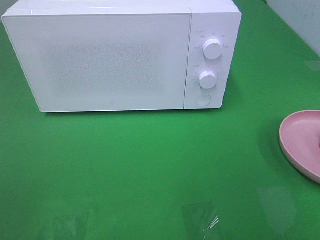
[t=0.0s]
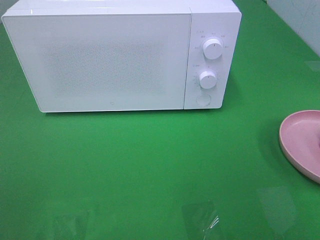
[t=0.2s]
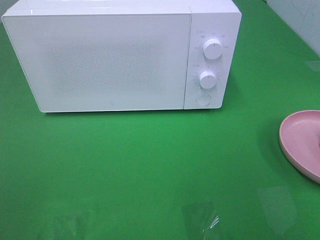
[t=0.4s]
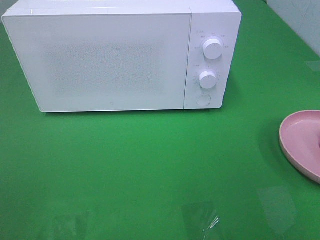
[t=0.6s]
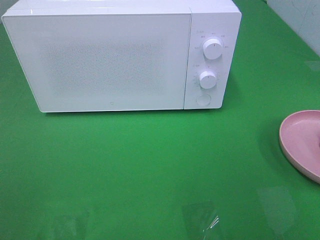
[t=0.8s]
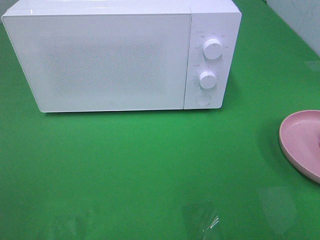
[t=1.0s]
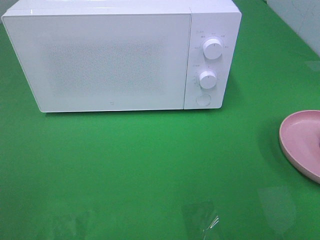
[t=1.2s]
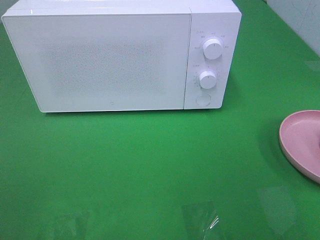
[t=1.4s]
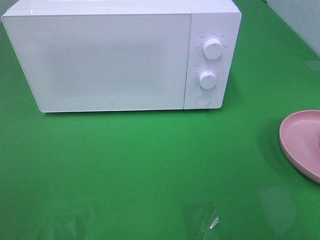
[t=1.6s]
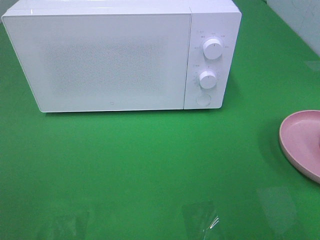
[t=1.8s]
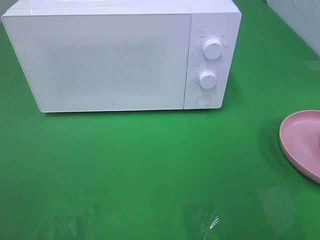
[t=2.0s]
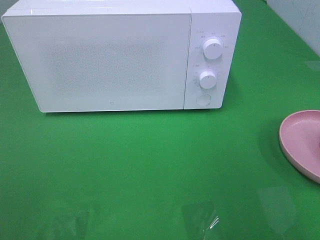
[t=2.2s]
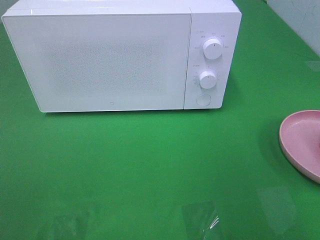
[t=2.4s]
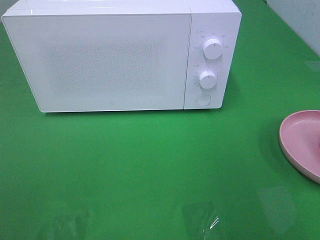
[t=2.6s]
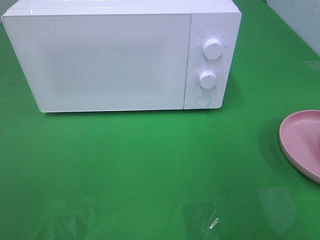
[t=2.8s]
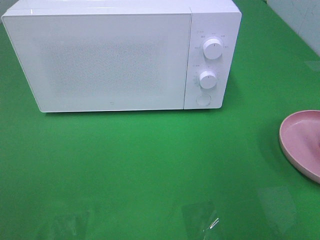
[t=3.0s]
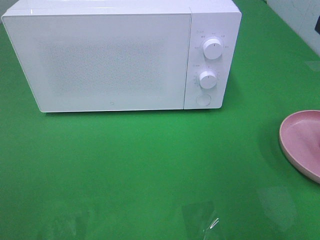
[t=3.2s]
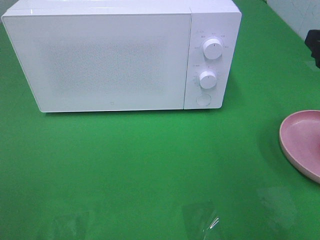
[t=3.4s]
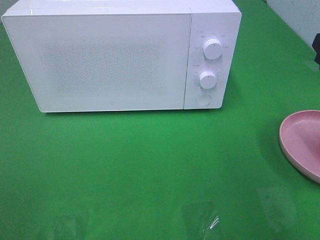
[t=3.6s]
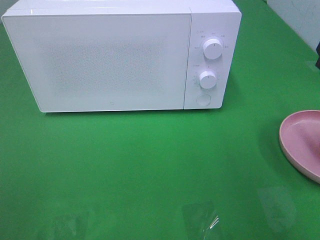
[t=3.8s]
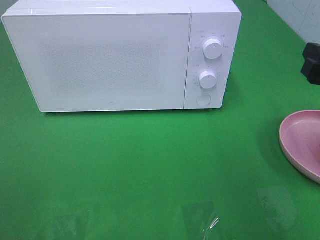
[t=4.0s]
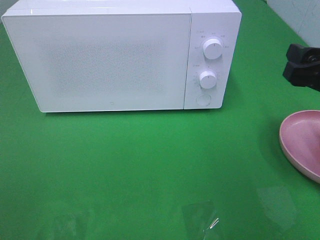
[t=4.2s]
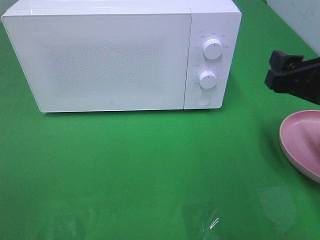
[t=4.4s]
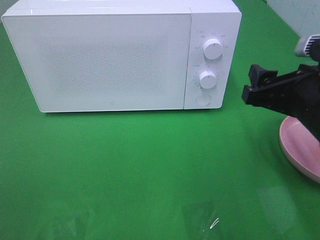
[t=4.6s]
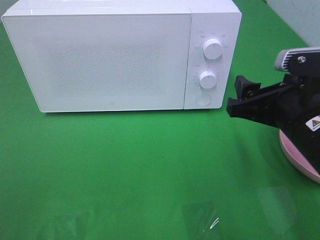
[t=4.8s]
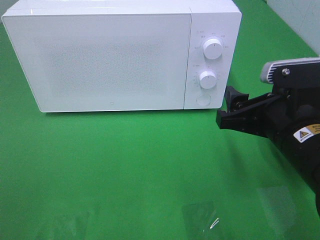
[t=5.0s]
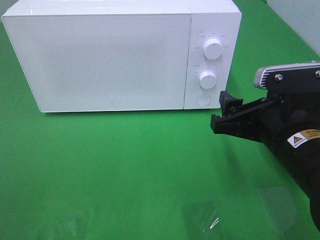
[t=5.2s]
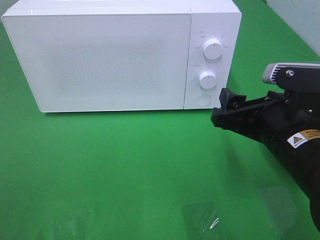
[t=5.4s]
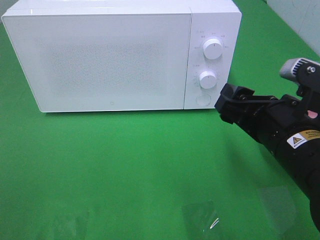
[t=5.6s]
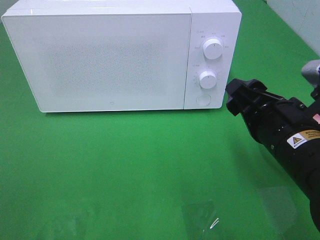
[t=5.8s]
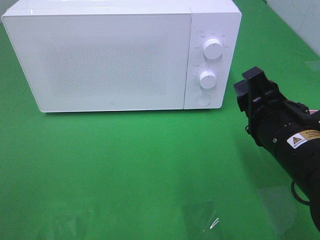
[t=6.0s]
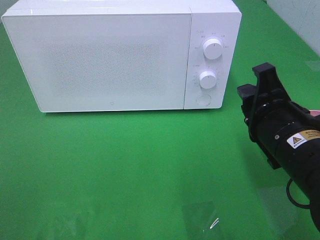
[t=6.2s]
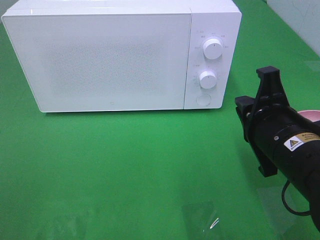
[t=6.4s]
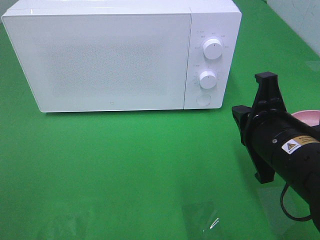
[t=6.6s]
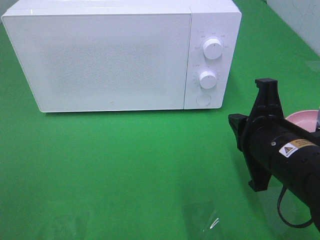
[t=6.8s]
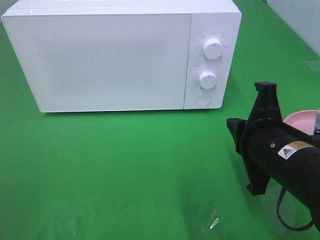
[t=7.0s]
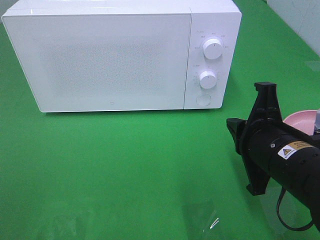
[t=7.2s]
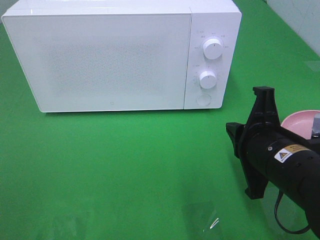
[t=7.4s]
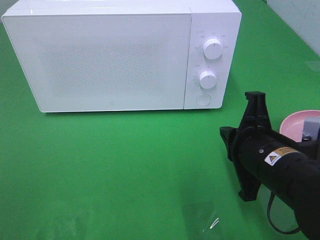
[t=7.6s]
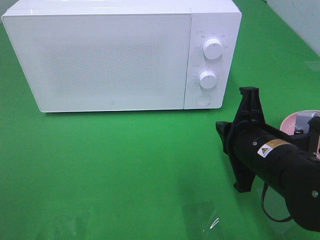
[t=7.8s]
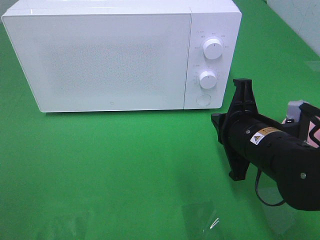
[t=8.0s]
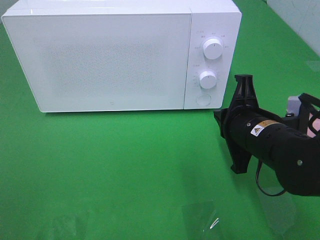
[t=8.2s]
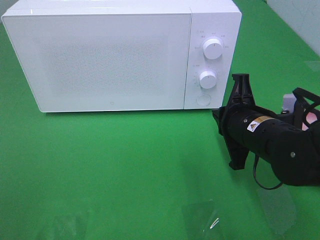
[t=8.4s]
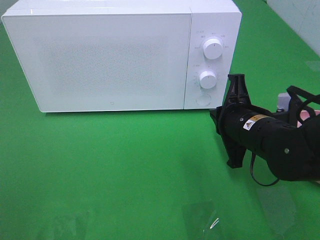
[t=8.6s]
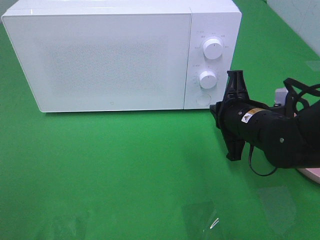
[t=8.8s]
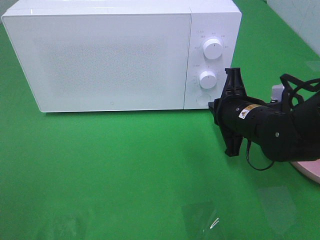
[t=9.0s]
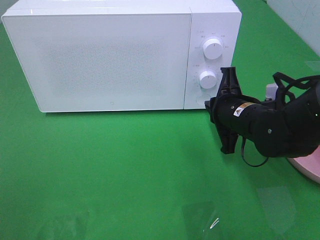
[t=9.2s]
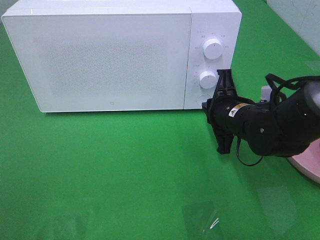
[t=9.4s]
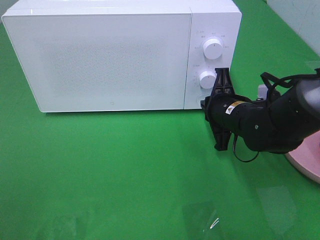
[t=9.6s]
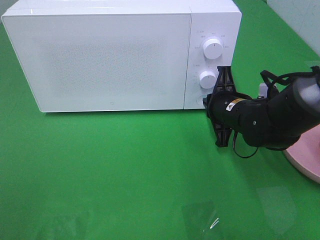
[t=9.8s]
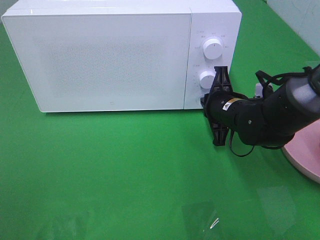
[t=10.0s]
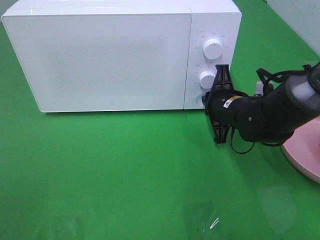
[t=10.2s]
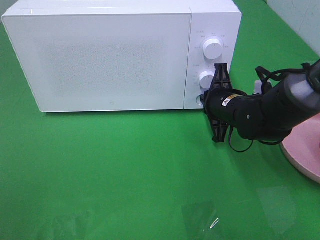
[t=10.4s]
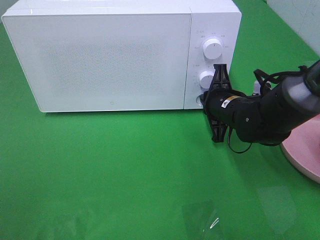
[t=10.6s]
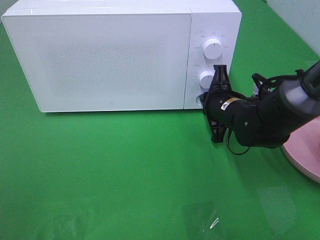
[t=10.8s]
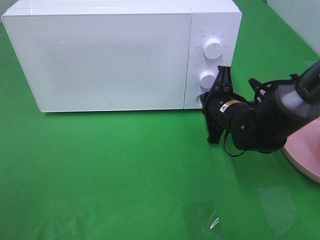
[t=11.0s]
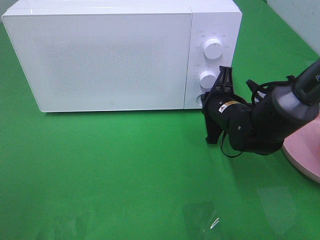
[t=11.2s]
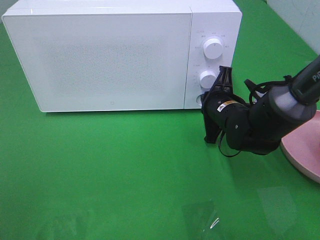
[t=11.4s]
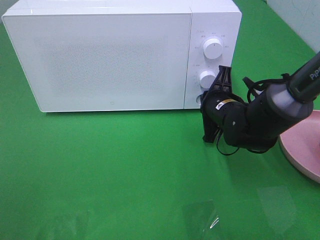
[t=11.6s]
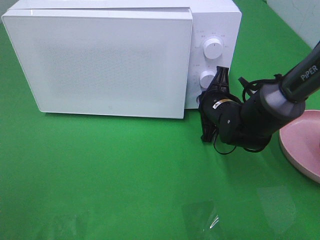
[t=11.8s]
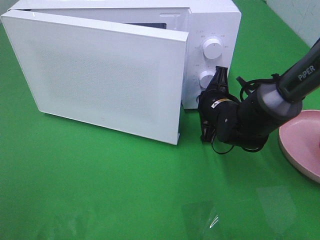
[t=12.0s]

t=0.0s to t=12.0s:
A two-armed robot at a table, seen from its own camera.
Task of the whole recording: Heat the burger.
t=3.0s to t=4.4s: The right gripper heads downward and to the left, covering approximately 10 cm.
t=4.4s to t=6.0s: The right gripper is displaced to the left by about 5 cm.
t=6.0s to t=7.6s: The right gripper closes.
t=7.6s to t=9.0s: The right gripper is displaced forward by about 10 cm.
t=9.0s to t=10.4s: The right gripper is displaced forward by roughly 5 cm.
t=10.4s to t=12.0s: There are only small adjustments of the grippers.

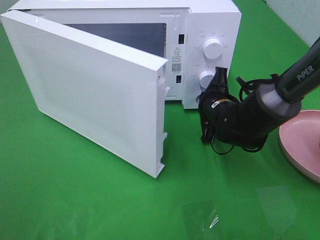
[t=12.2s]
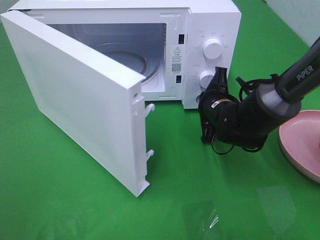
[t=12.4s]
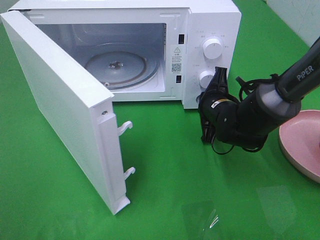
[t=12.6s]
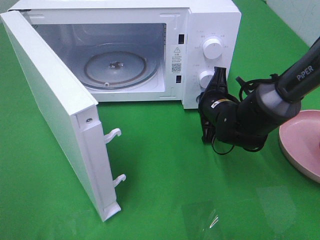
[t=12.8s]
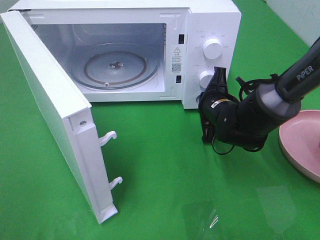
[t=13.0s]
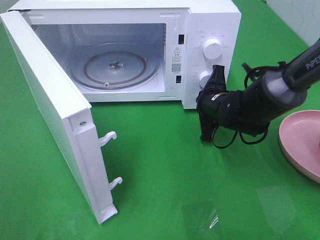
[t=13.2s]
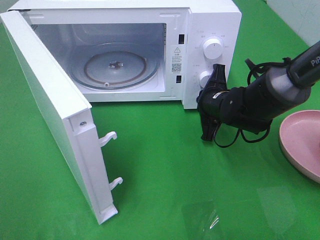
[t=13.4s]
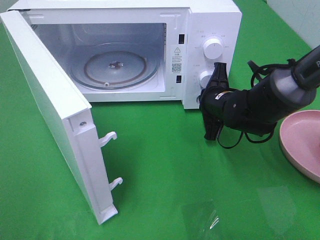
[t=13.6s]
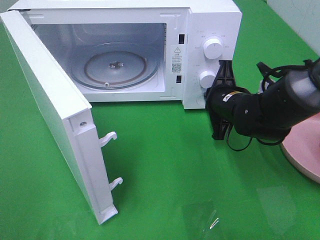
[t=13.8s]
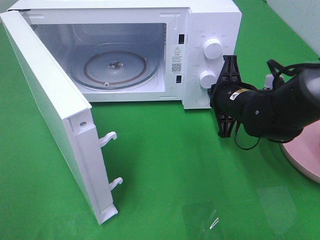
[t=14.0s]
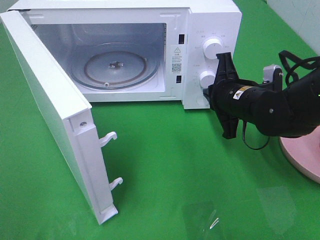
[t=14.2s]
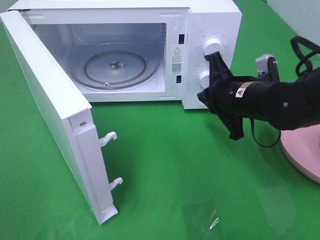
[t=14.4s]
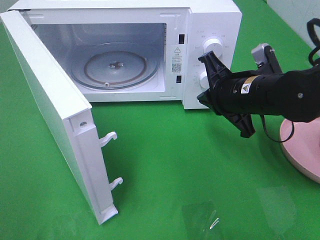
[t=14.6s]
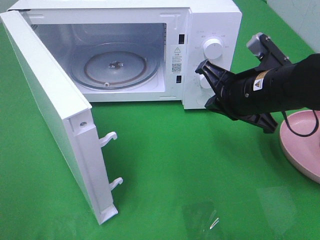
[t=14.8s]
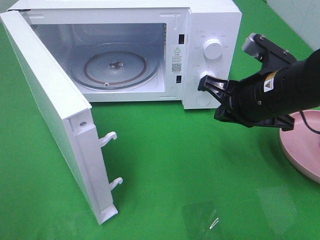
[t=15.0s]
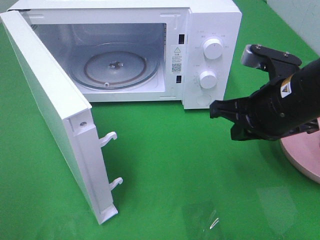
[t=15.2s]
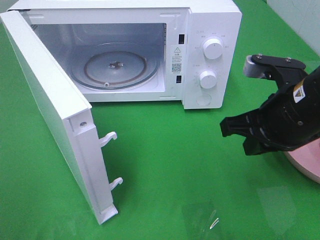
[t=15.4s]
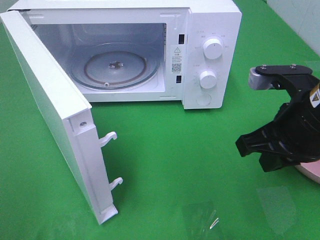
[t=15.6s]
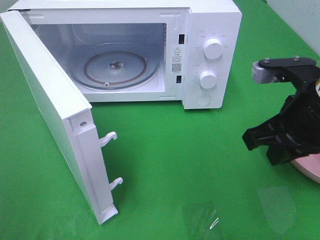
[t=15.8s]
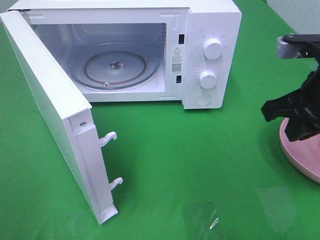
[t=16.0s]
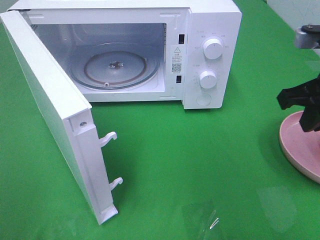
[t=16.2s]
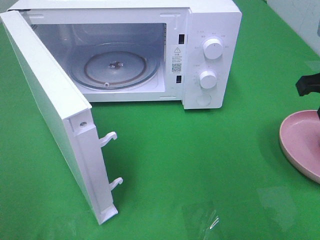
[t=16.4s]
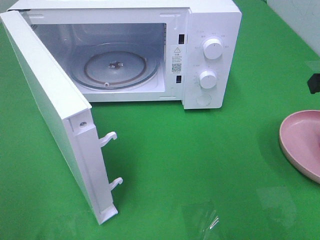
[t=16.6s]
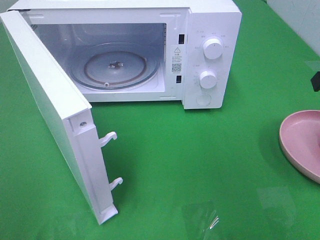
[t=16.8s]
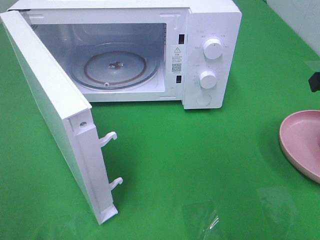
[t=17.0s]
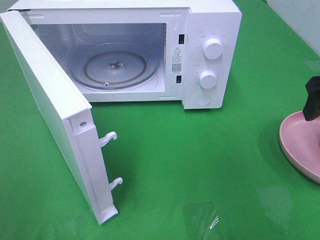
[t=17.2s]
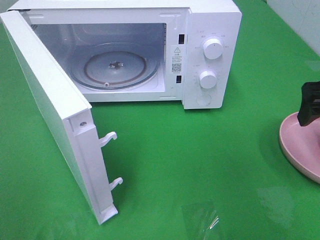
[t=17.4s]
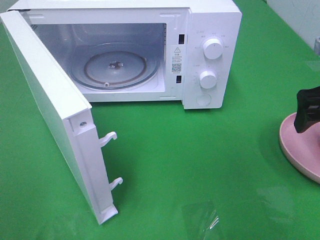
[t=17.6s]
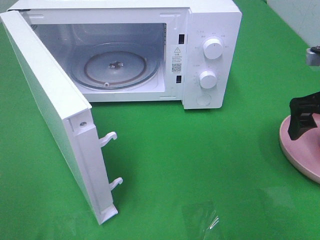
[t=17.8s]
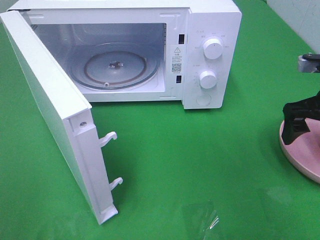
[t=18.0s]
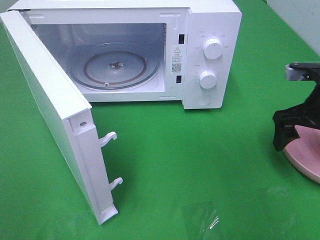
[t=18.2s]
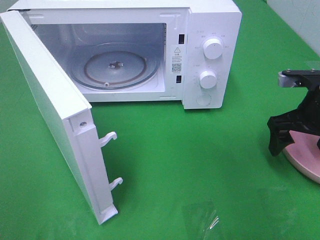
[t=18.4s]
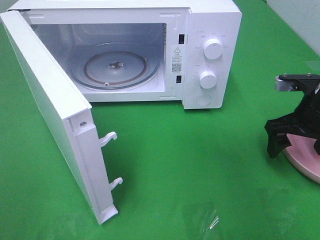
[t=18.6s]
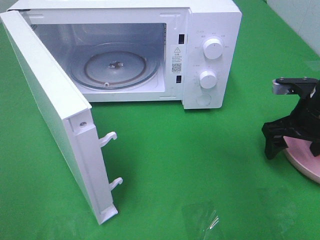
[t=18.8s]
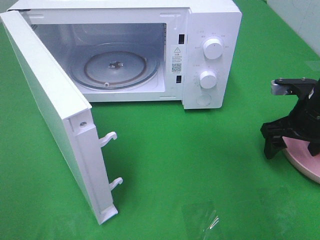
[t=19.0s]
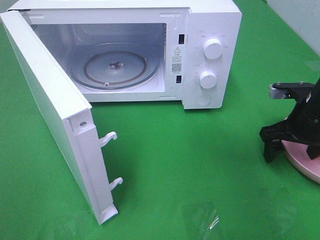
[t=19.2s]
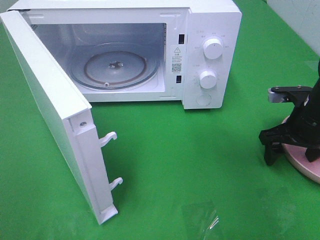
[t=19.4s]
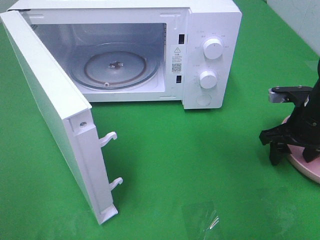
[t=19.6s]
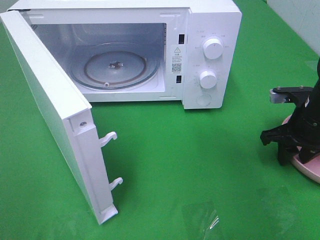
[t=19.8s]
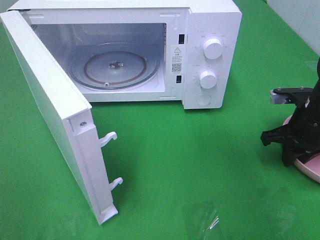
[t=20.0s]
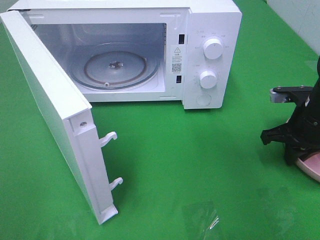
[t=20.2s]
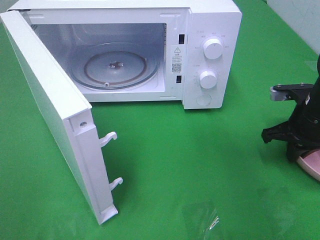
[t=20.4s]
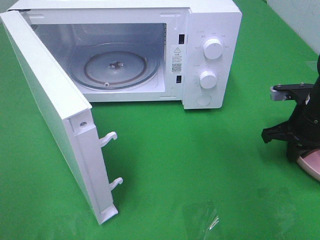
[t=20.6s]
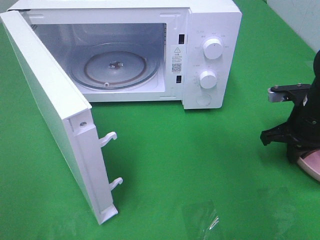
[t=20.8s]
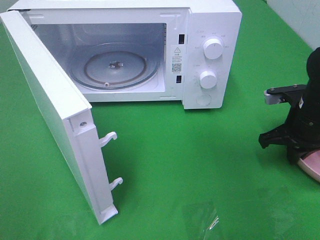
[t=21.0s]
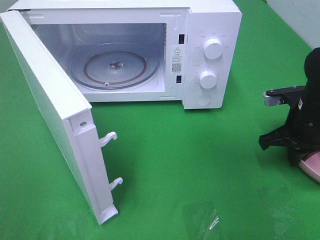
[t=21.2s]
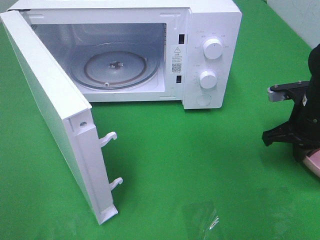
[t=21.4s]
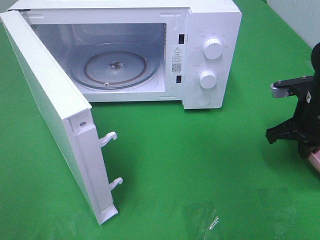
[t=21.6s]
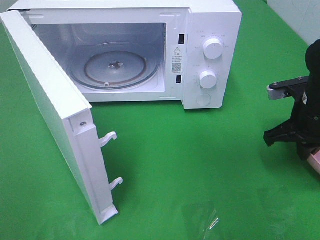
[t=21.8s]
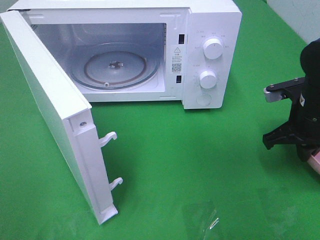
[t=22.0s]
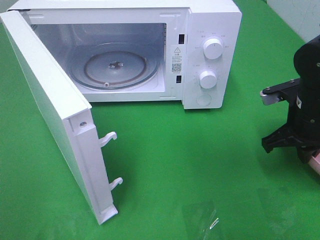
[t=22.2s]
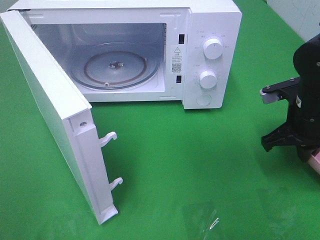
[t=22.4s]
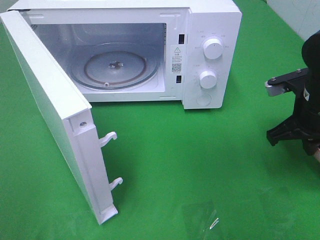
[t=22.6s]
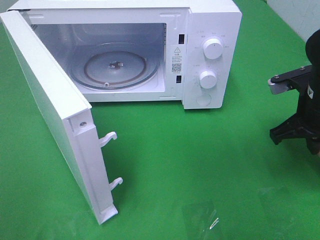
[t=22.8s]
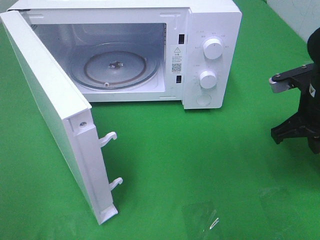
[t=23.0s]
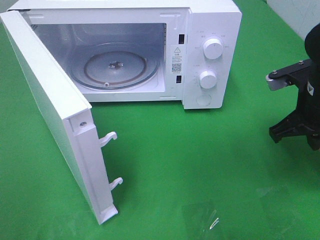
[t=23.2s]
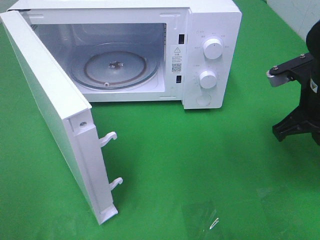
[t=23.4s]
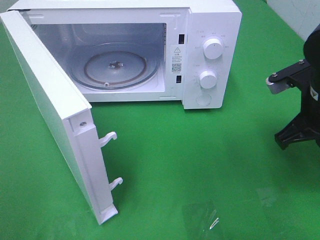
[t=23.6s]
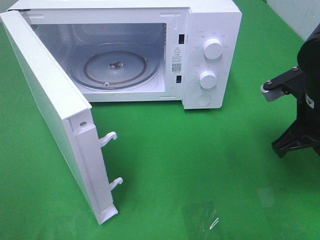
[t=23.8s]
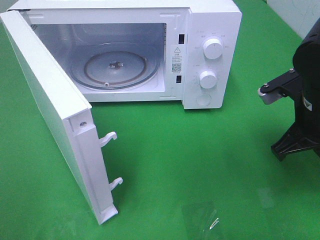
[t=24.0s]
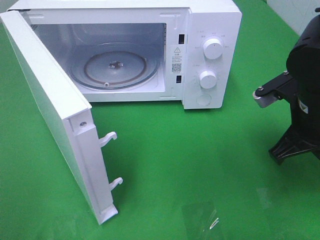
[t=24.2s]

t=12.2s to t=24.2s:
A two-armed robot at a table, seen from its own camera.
Task of the whole recording: Heat the burger.
Step, t=14.0s to t=20.8s: Right hand: grab the plate with the hamburger.
t=13.8s to t=15.2s: The right gripper shifts roughly 15 cm backward and upward.
t=15.2s to t=16.6s: The right gripper travels to the right and upward by roughly 15 cm.
t=16.6s to t=18.2s: The right gripper goes roughly 10 cm downward, and opens.
t=18.2s to t=19.8s: The right gripper is displaced downward by about 5 cm, and closes its fingers.
t=19.8s to t=21.2s: The right gripper closes up.
t=21.2s to t=22.6s: The right gripper ends up about 5 cm from where it was.
t=22.6s to t=24.2s: The right gripper moves roughly 5 cm.
